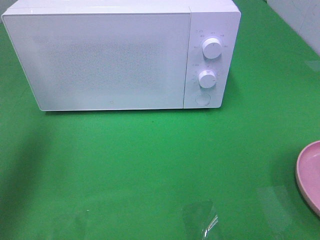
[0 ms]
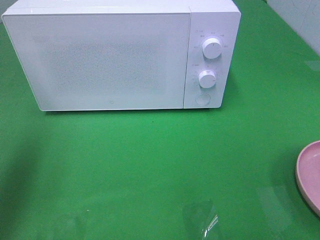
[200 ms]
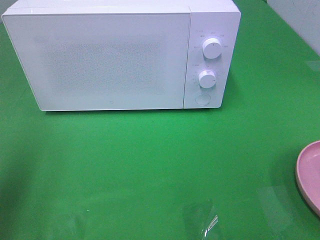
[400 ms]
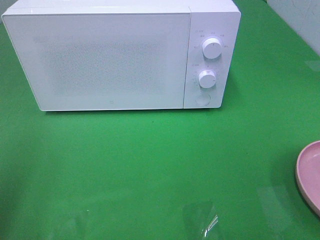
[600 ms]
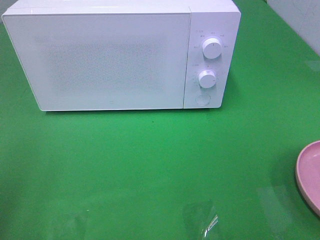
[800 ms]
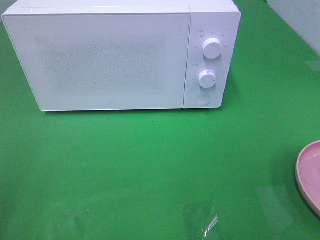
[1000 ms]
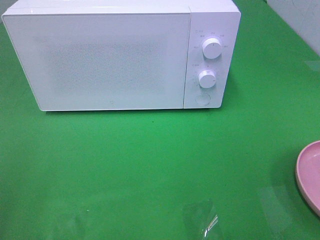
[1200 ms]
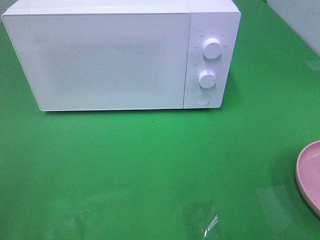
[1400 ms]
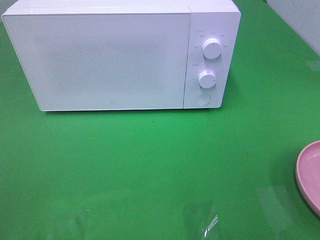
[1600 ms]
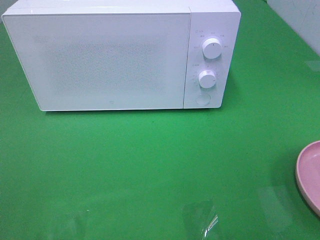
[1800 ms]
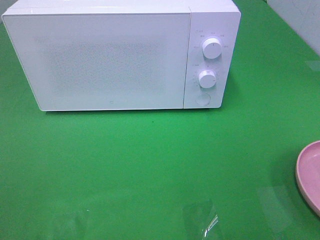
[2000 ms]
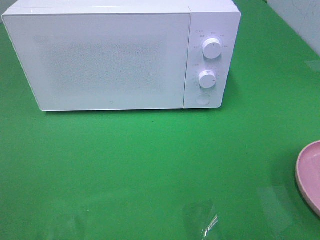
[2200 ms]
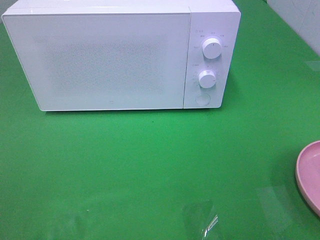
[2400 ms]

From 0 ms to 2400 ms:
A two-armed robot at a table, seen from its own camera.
Task of the whole recording: Heat the burger.
From 0 ms to 1200 ms: The left gripper is displaced backward by approximately 20 cm.
